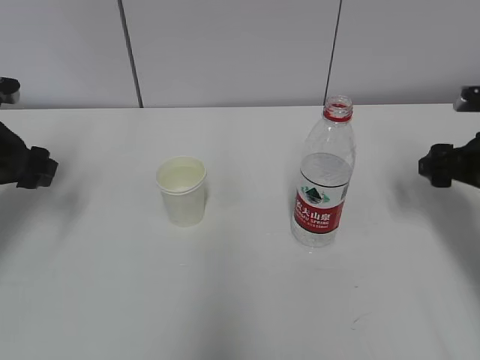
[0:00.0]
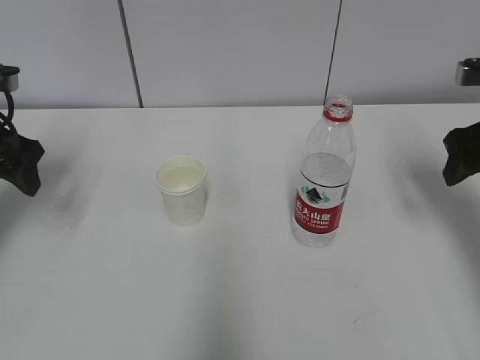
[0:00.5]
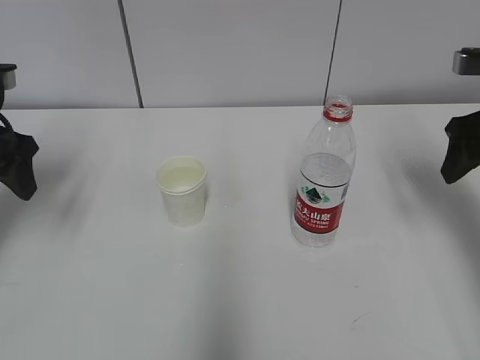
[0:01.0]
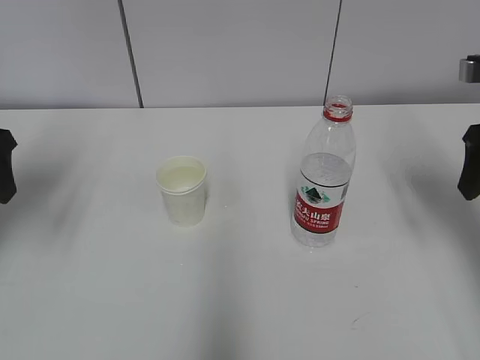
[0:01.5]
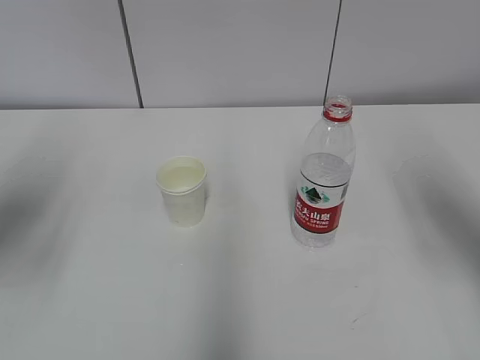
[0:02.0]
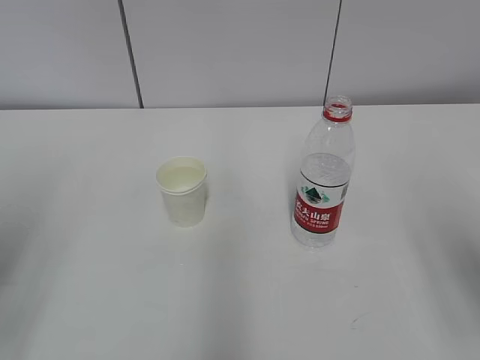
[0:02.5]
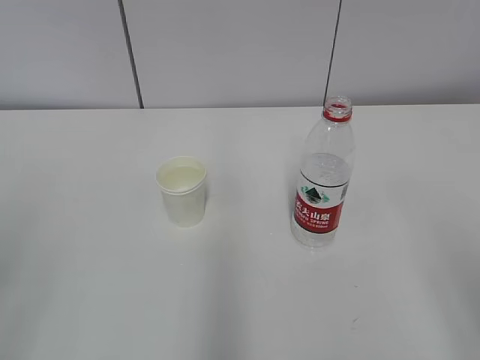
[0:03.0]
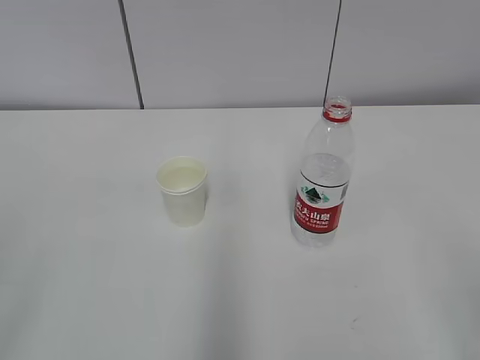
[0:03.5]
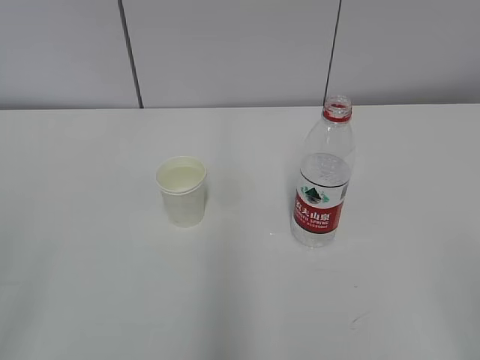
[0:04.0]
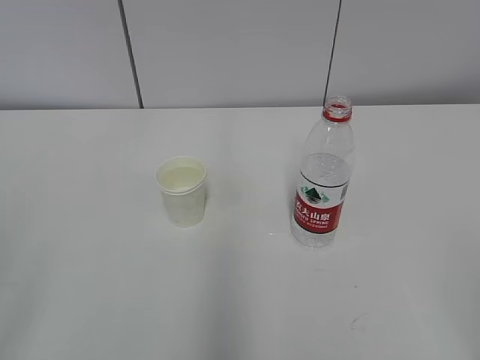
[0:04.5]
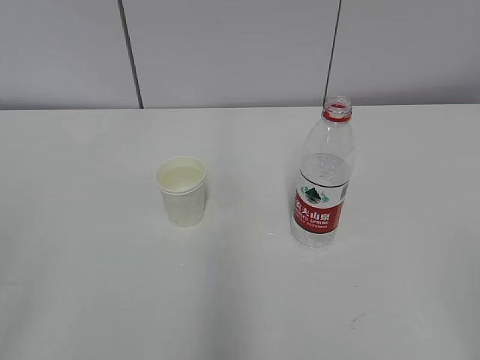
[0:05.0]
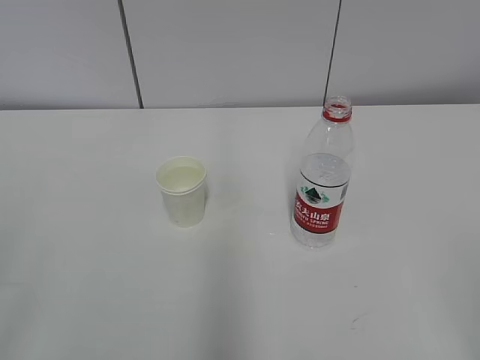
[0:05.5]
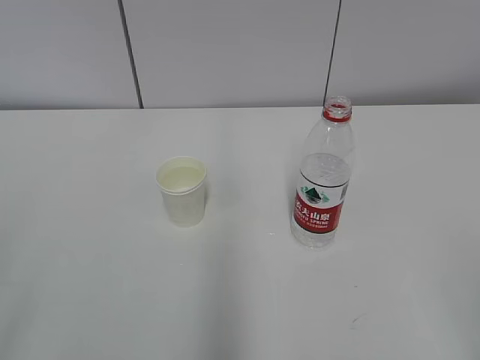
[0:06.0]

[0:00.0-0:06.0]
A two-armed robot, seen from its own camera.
0:00.0 to 0:02.0: The right gripper goes approximately 15 cm upward and backward; the left gripper shifts roughly 15 cm backward and upward.
0:02.0 to 0:04.0: Both grippers move backward, approximately 25 cm.
